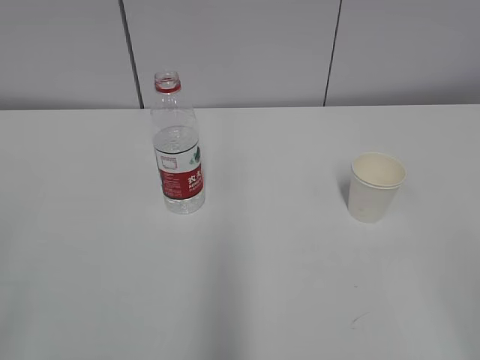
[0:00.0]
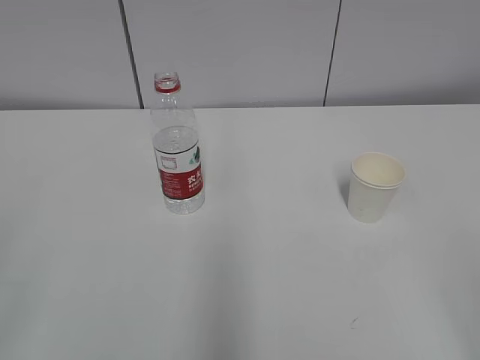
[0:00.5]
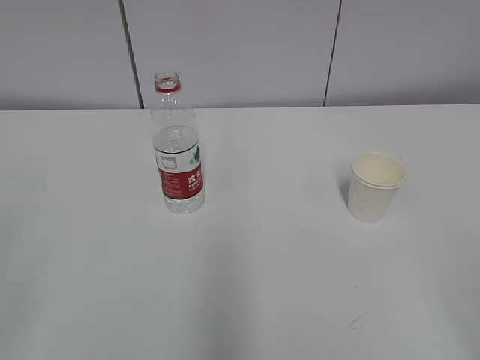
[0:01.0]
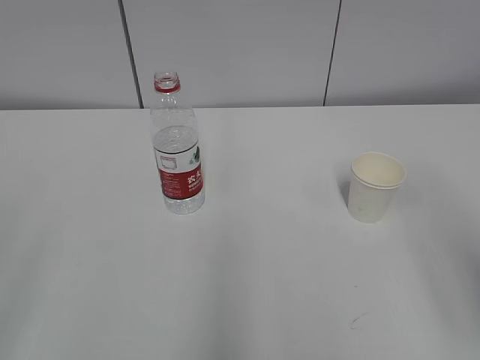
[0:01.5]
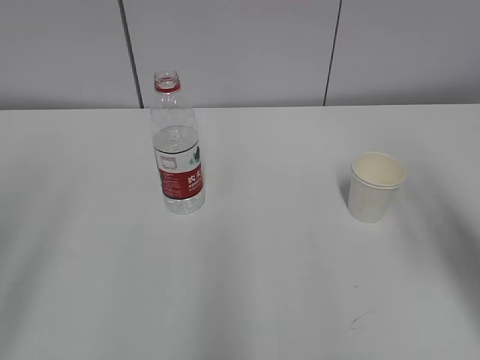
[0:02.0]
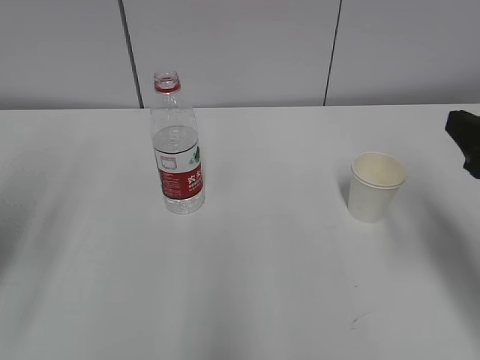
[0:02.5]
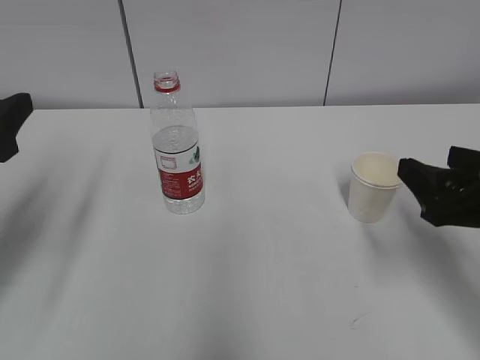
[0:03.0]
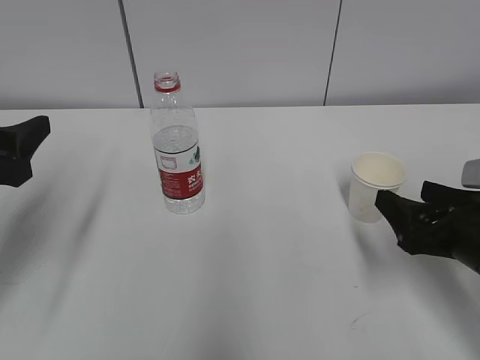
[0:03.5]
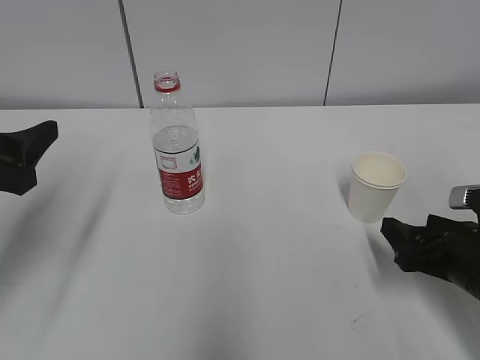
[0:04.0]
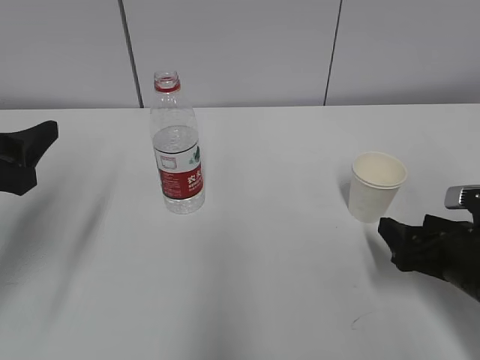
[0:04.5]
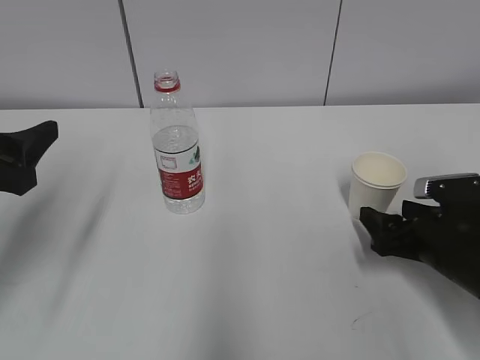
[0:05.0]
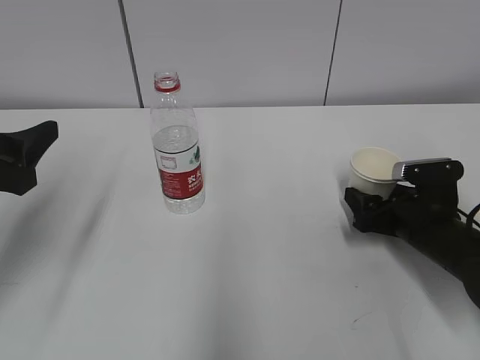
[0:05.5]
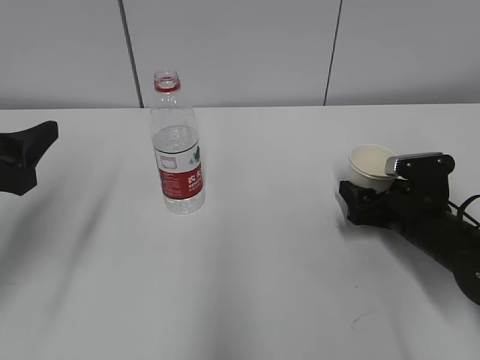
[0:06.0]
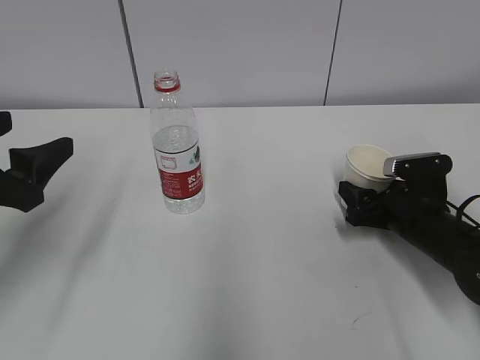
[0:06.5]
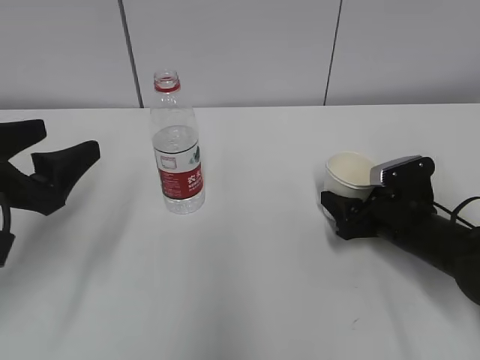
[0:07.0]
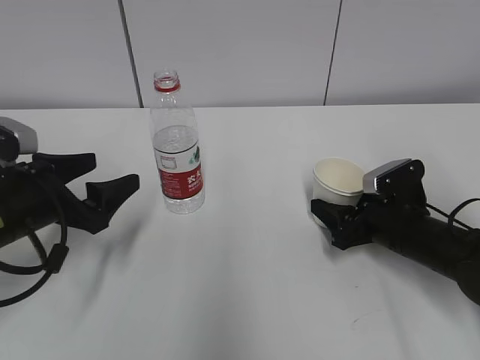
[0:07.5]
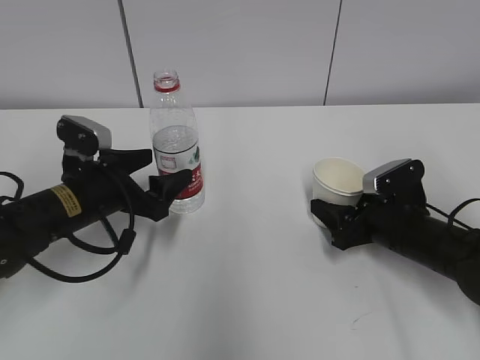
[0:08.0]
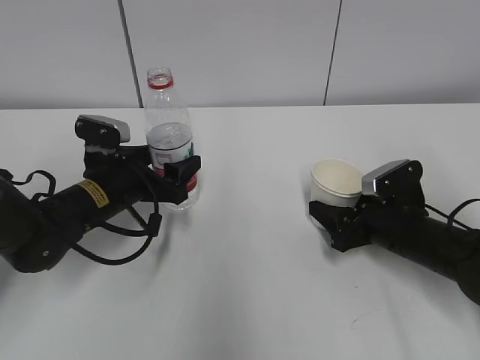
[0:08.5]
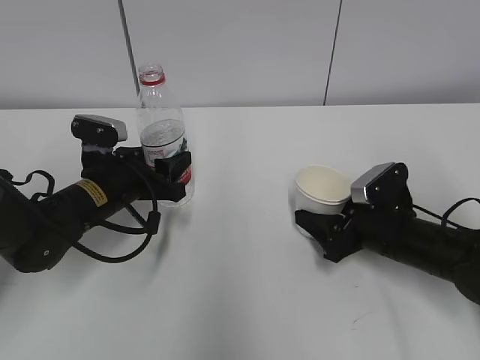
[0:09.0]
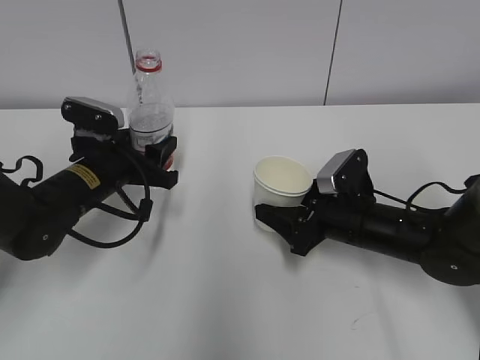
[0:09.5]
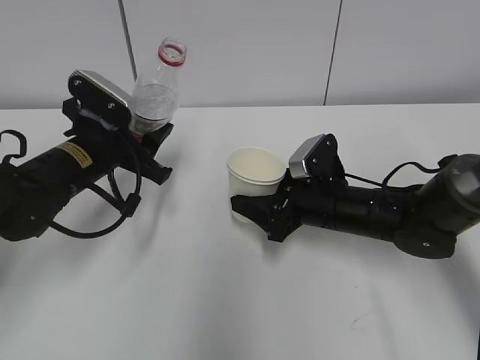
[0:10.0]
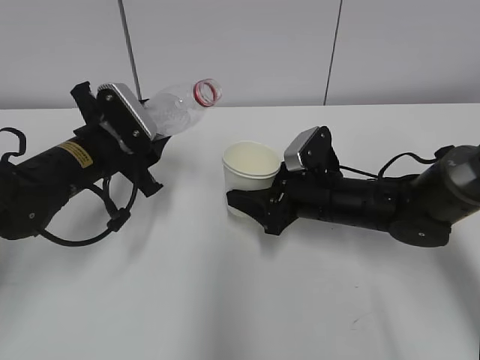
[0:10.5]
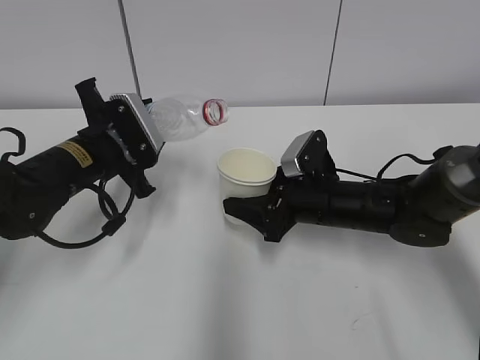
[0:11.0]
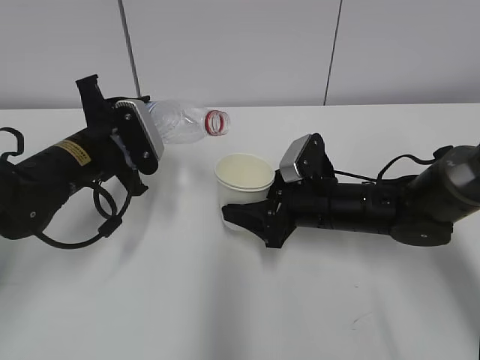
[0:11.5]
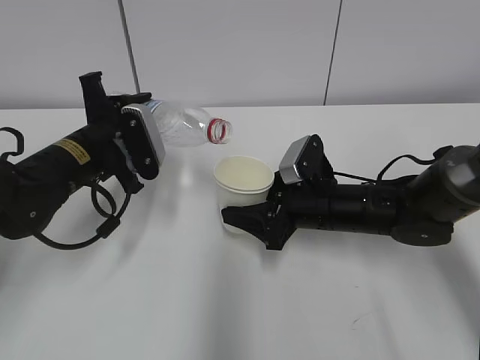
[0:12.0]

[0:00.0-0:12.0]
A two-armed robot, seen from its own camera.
Step, 0:00.0 to 0:07.0: Grab the paper cup with the right hand.
Step, 0:08.0 to 0:10.5: Lift the paper cup with the right hand.
0:02.0 to 0:04.0: The left gripper shifts approximately 20 cm forward and downward, while the right gripper shifts approximately 20 cm downward.
0:04.0 to 0:06.0: The right gripper goes about 10 cm forward.
0:06.0 to 0:08.0: The left gripper goes some 15 cm downward, forward and to the right, while the right gripper closes.
0:08.0 to 0:10.0: The right gripper is displaced to the left by roughly 10 cm; the left gripper ends up some 5 cm from where it was, and closes its fingers.

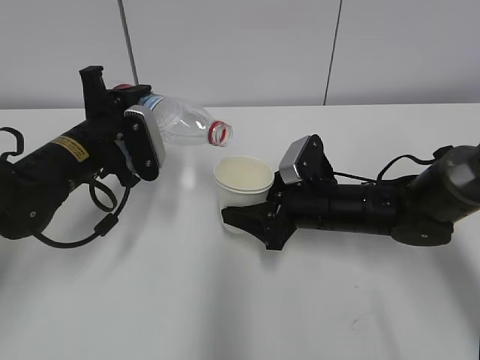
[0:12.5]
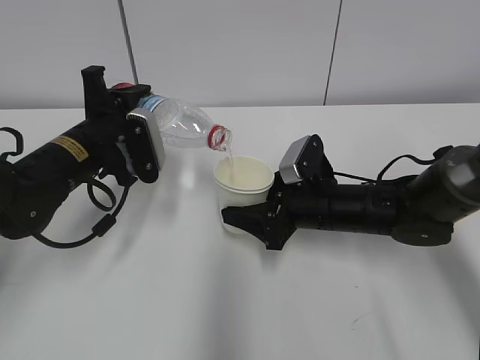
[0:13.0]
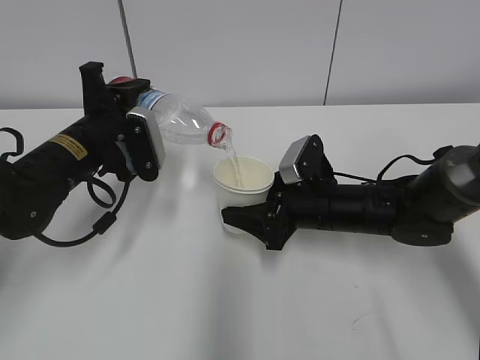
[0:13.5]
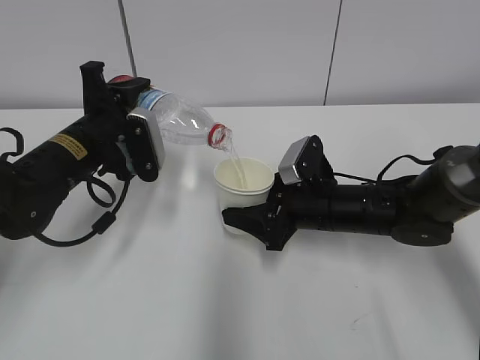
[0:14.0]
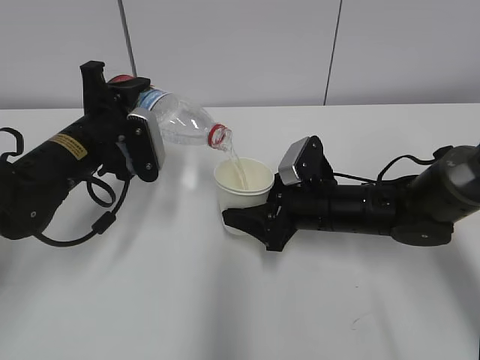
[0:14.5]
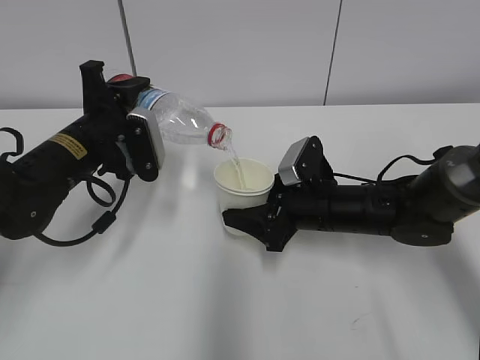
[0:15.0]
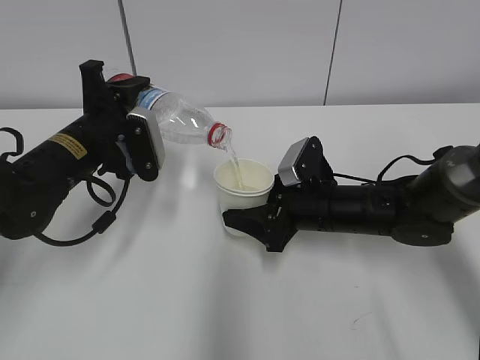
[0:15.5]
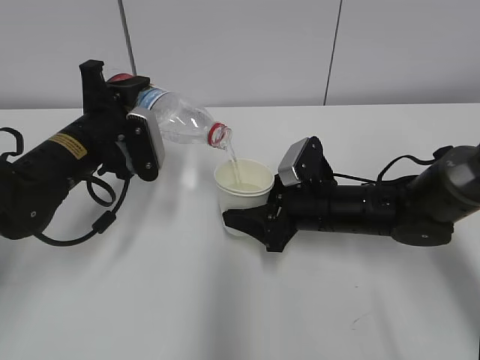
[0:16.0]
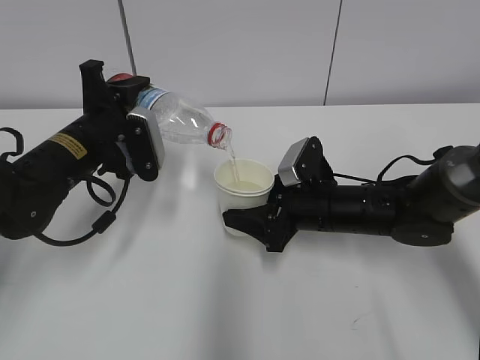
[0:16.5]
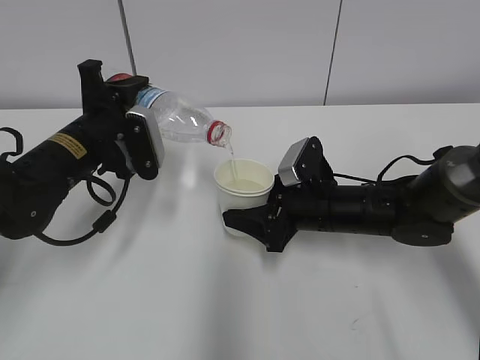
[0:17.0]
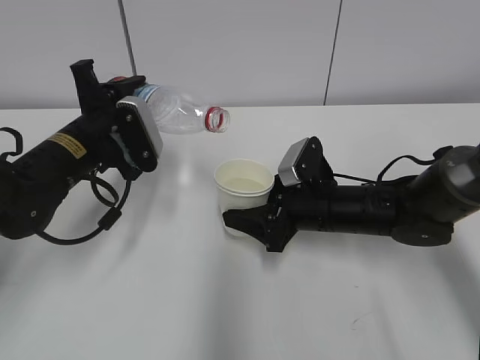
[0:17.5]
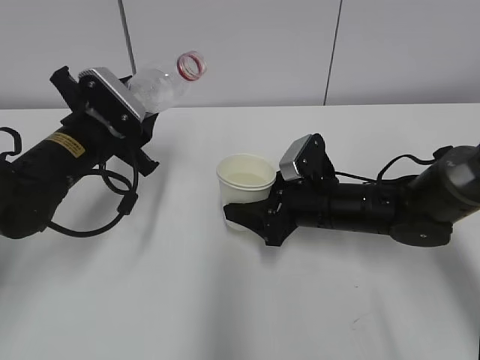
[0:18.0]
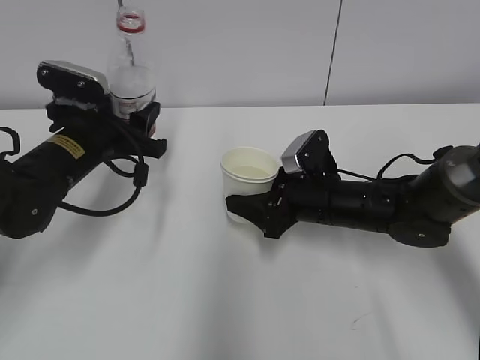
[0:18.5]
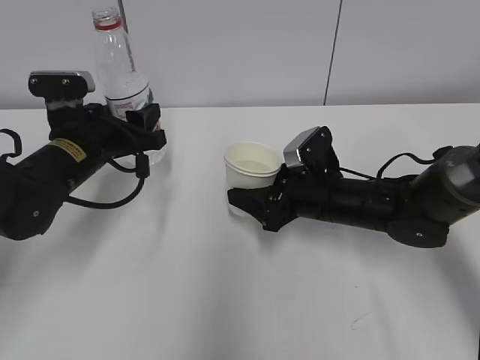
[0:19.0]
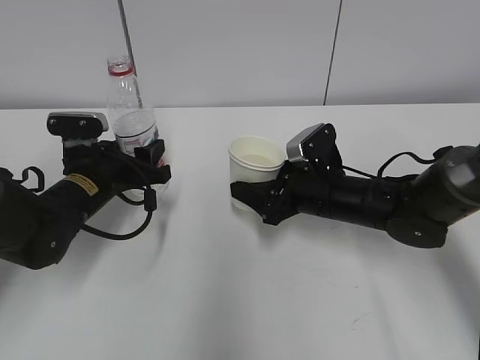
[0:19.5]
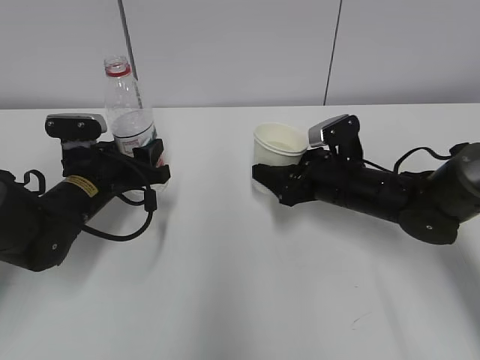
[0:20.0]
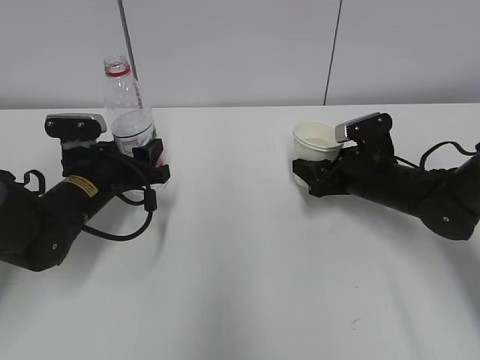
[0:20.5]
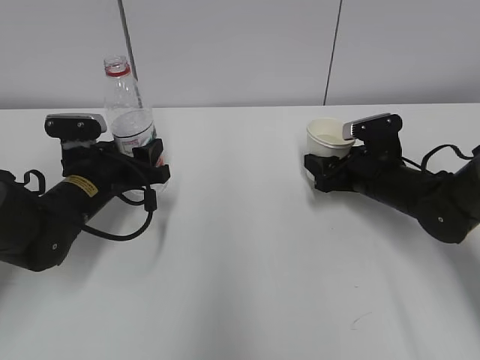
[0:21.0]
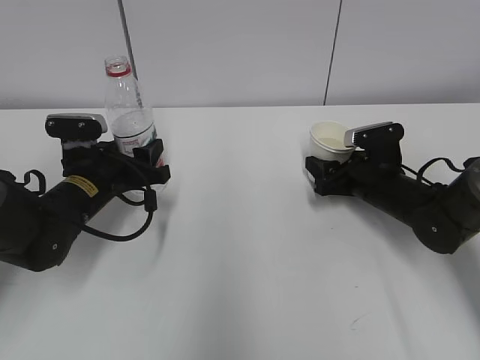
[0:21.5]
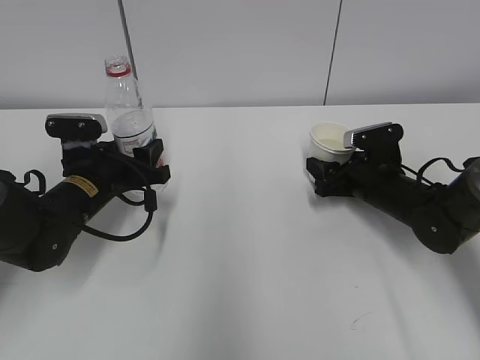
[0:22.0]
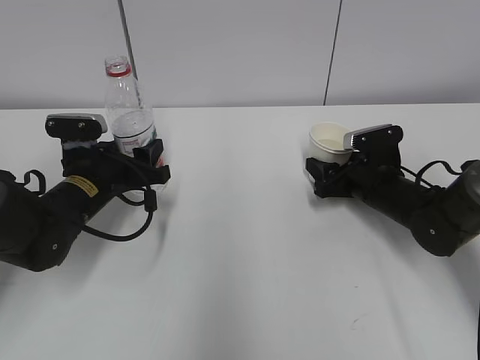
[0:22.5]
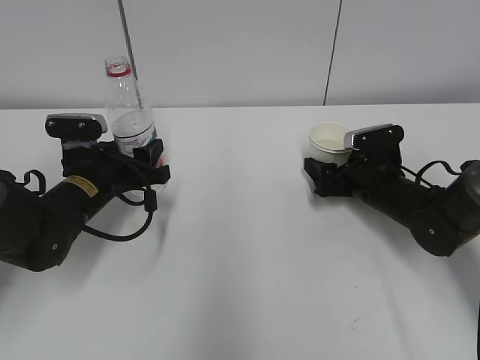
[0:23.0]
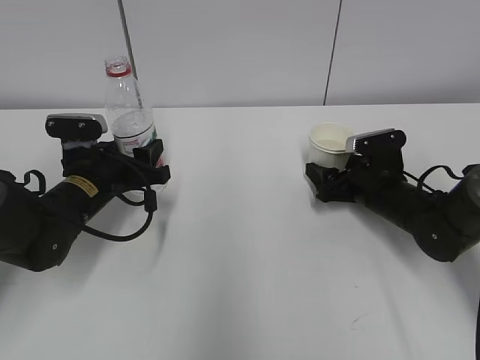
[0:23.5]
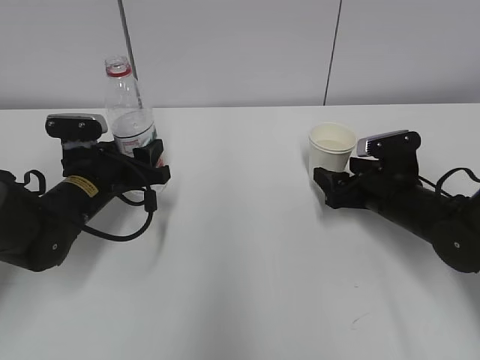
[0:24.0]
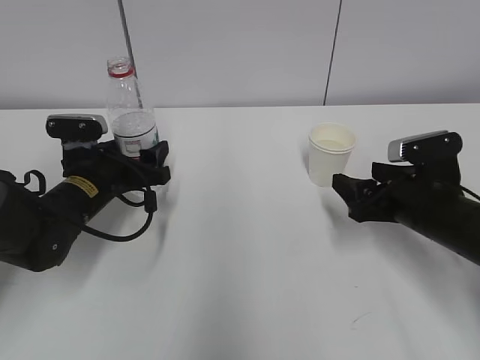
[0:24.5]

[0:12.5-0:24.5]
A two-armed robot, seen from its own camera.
Step, 0:16.0 to 0:19.5: Place the paper cup with the right hand.
0:12.5 to 0:14.5: The grippers move only a little.
0:14.5 to 0:16.5: Both grippers stay about where they are.
0:18.5 to 0:20.5: The right gripper shifts roughly 10 cm to the right. The left gripper shifts approximately 5 cm downward.
0:20.5 to 0:22.5: There are only small adjustments of the grippers.
0:22.5 to 0:24.5: The left gripper opens; the right gripper heads backward and upward, covering some 10 cm, and opens up.

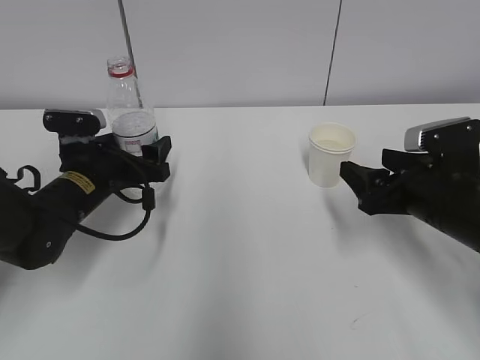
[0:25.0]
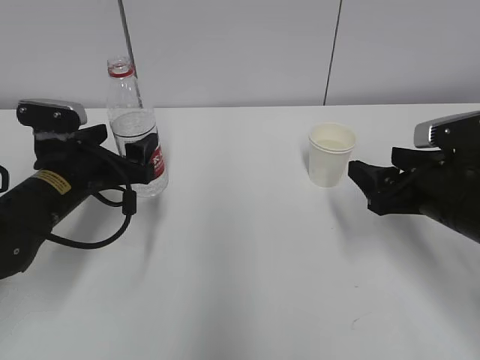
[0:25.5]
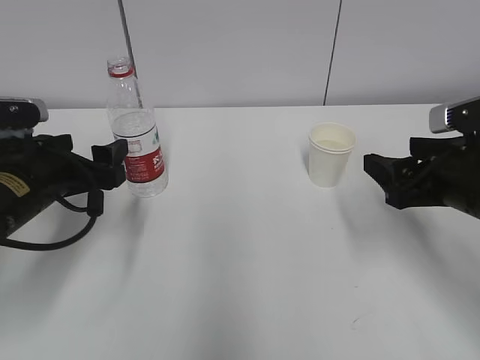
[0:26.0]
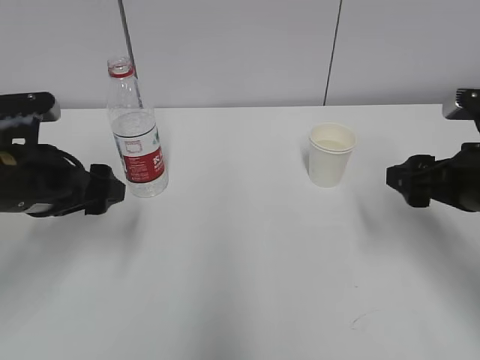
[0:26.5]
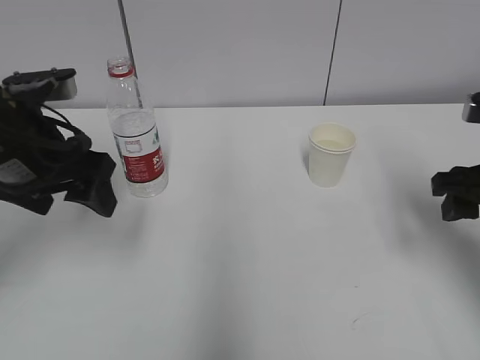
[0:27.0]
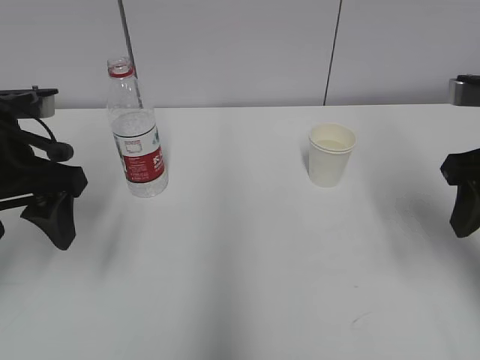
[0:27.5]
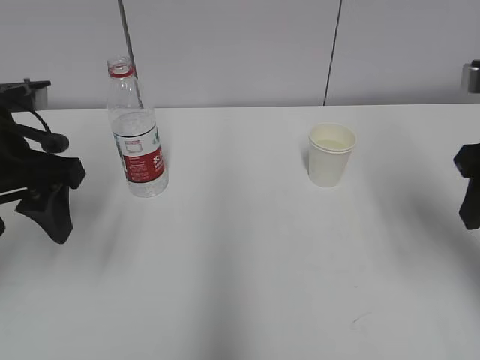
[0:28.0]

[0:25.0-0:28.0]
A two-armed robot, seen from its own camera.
0:25.0 to 0:26.5: The right gripper goes approximately 5 cm upward, while the left gripper shifts about 10 cm upward and backward.
0:26.5 to 0:28.0: The grippers both shift upward by some 10 cm. The right gripper closes up.
